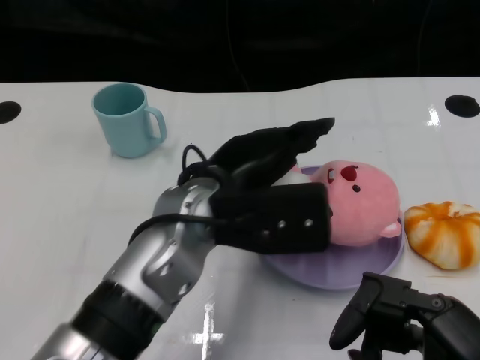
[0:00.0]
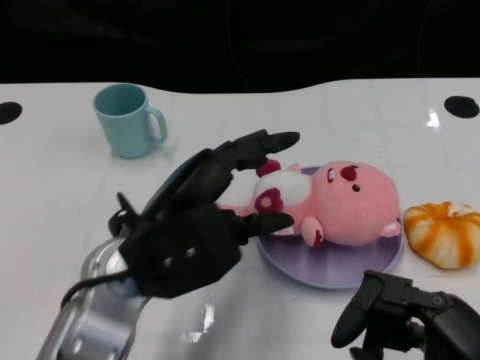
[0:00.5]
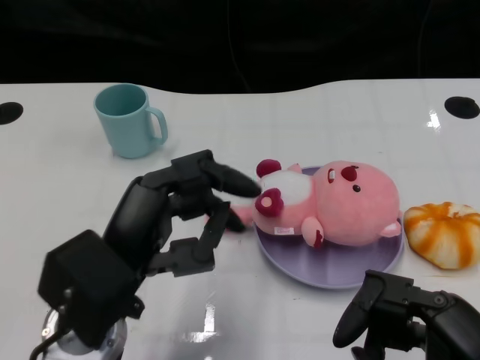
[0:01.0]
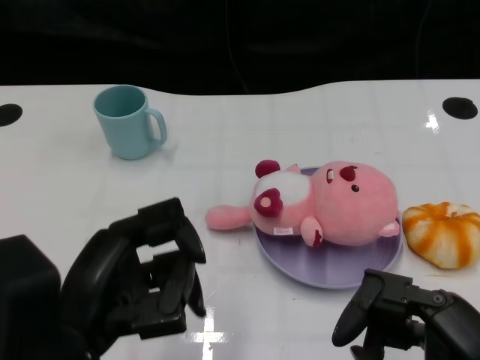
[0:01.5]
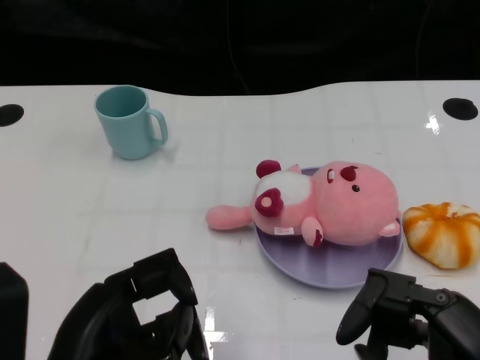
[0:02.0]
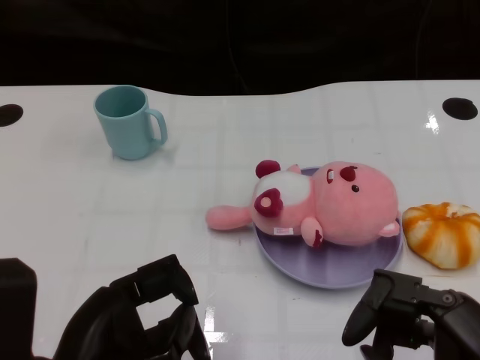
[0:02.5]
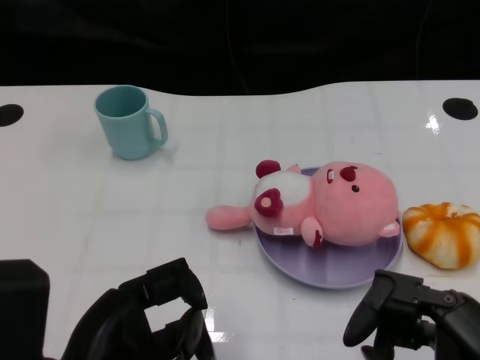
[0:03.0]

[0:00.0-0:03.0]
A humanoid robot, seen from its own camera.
Task of the whole recording: Pick up the doll on one side of the plate and place it into the plate.
0:00.0 to 0:01.5: The left hand heads backward and to the left, covering about 15 cm.
